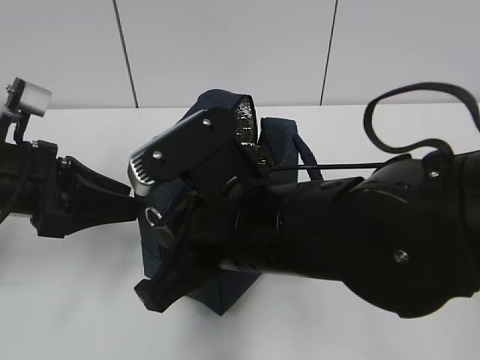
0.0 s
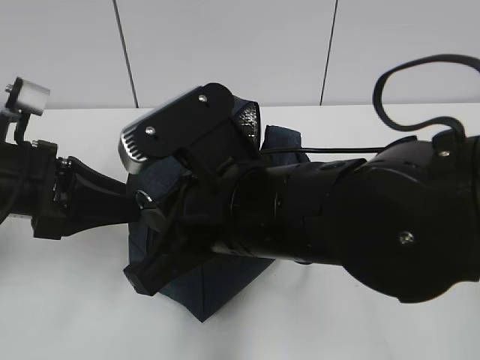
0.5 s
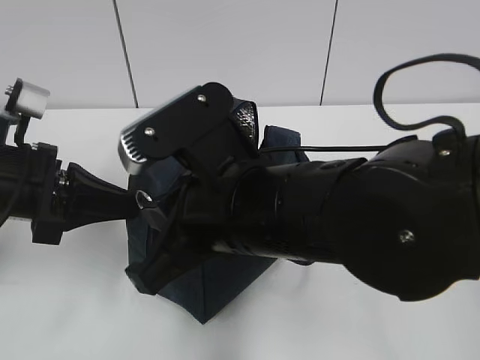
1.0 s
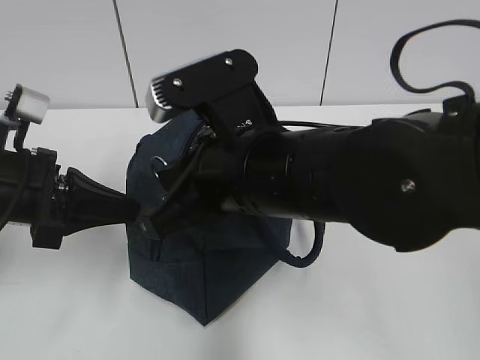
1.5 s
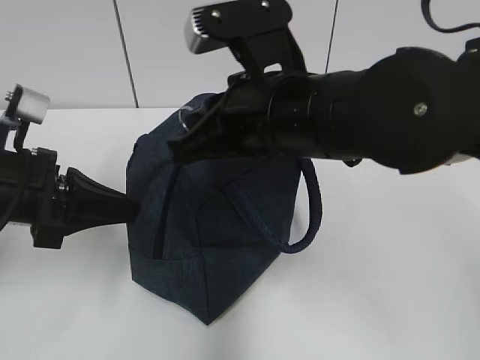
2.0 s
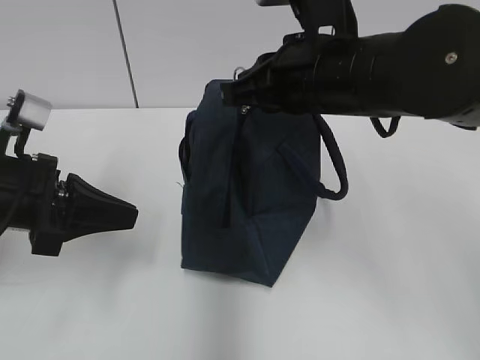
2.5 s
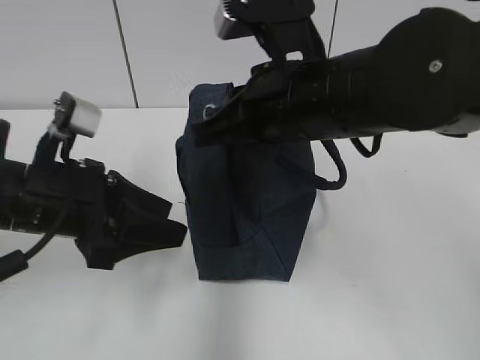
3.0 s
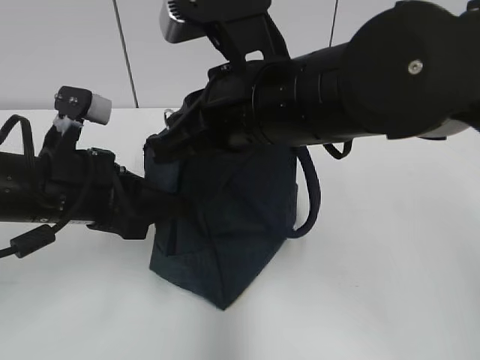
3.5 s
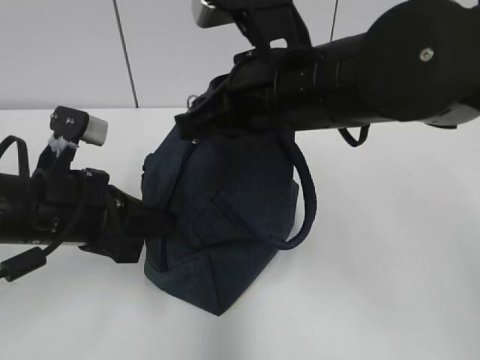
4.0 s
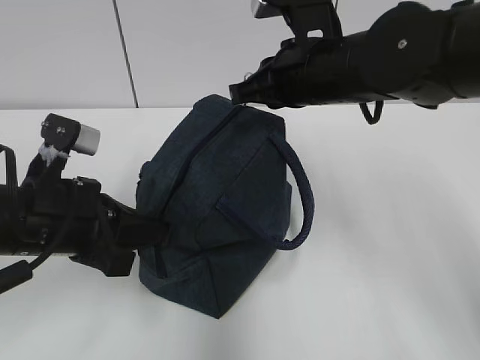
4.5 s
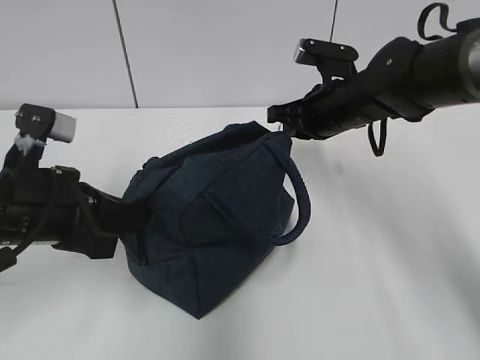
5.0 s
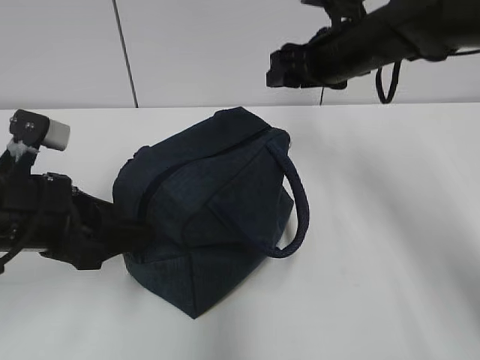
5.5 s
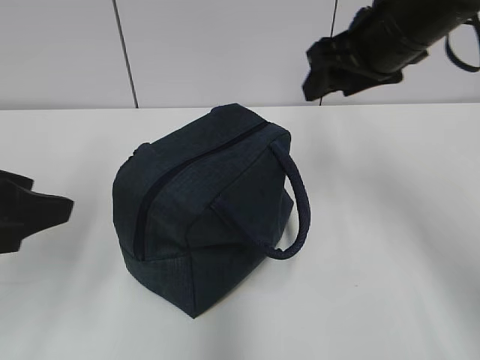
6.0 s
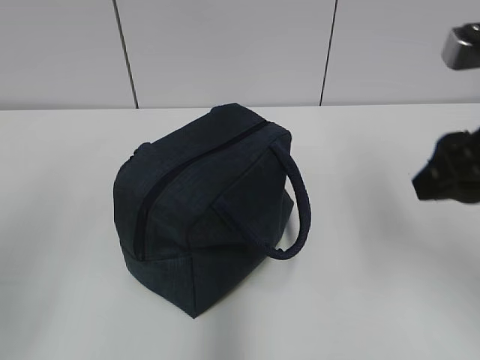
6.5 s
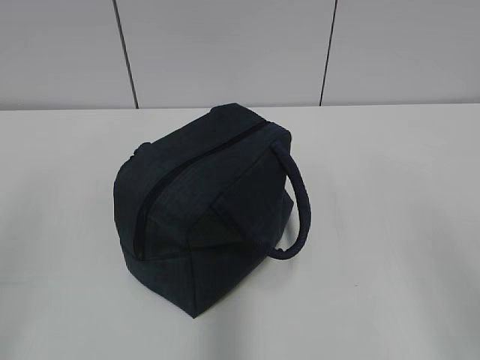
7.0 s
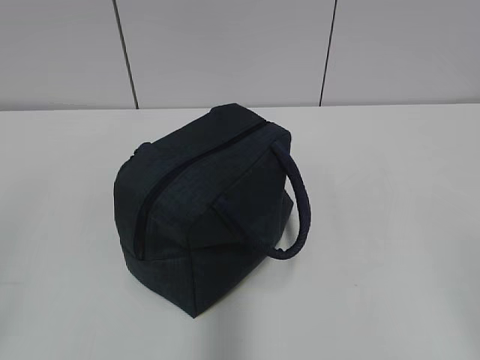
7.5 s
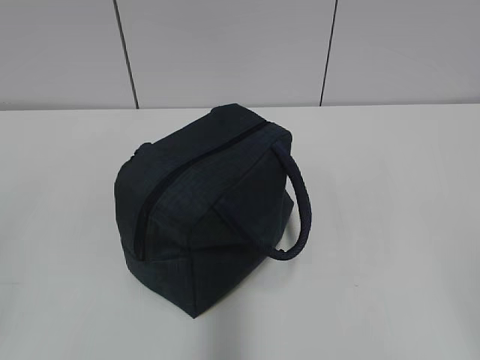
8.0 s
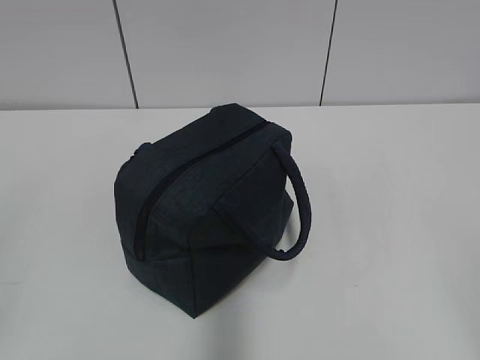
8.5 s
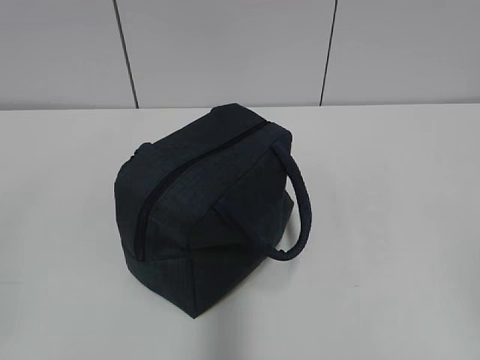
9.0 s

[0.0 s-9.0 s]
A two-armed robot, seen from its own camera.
Step, 0.0 to 5.0 s: Pull the zipper with your right hand.
0.0 to 2.0 s: The right gripper is displaced forward by some 5 cm; the left gripper closes up.
2.0 to 4.5 s: The left gripper ends up approximately 5 cm from where it was, and opens, then closes once more. The right gripper heads forward, covering about 10 cm.
4.5 to 7.0 s: The right gripper heads backward and to the right, covering approximately 35 cm, and opens. Meanwhile the left gripper shifts about 25 cm backward, to the left and upward, and opens up.
7.0 to 9.0 s: The right gripper is displaced backward by about 10 cm.
